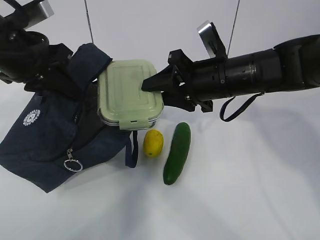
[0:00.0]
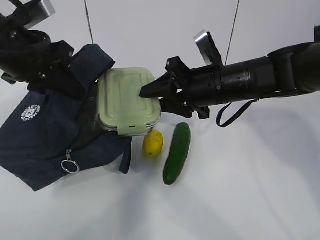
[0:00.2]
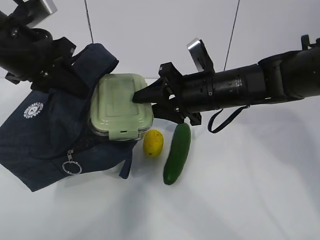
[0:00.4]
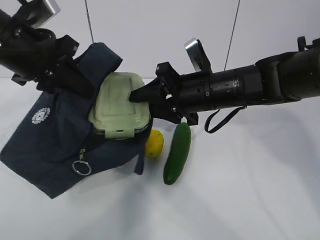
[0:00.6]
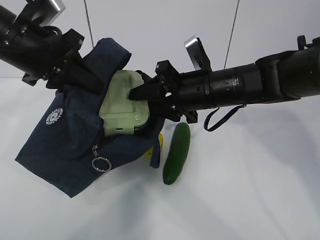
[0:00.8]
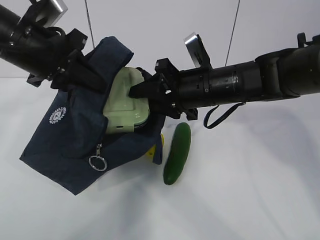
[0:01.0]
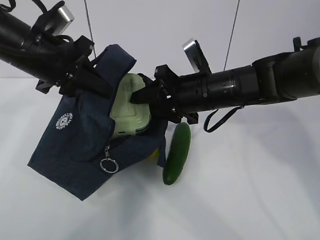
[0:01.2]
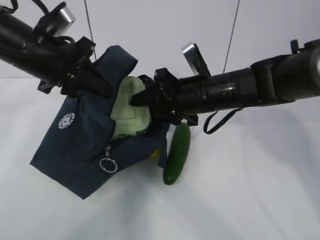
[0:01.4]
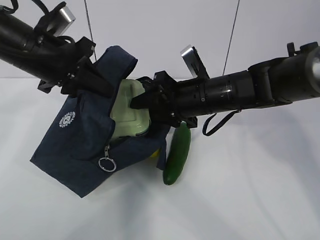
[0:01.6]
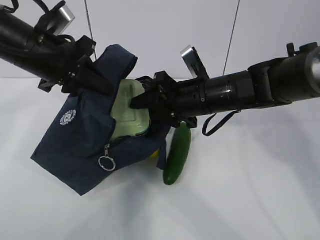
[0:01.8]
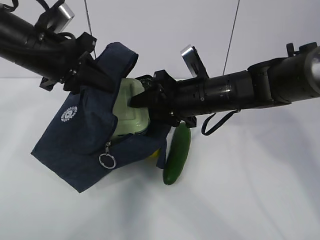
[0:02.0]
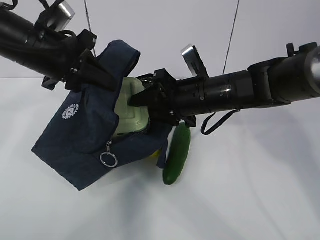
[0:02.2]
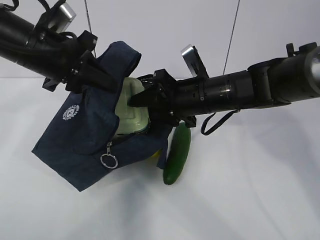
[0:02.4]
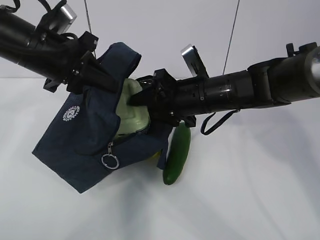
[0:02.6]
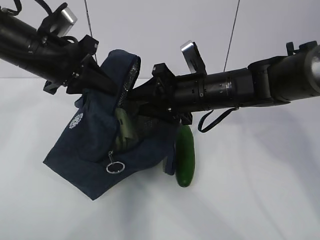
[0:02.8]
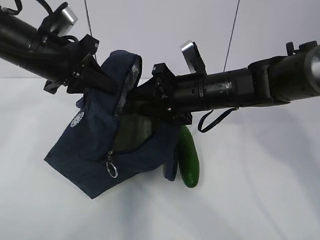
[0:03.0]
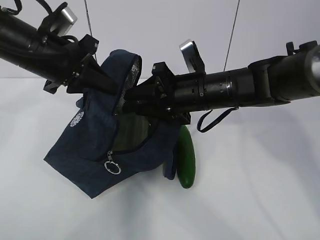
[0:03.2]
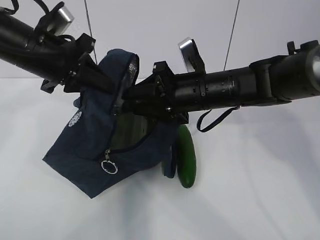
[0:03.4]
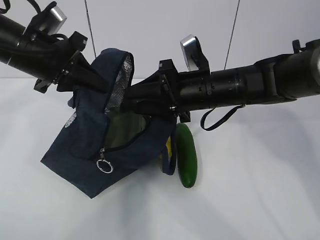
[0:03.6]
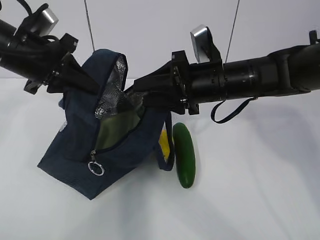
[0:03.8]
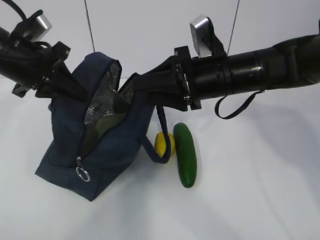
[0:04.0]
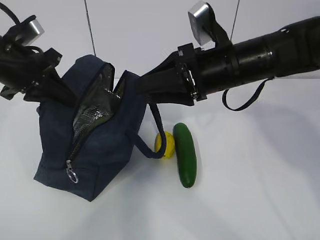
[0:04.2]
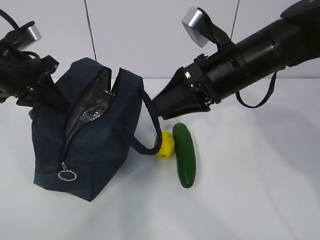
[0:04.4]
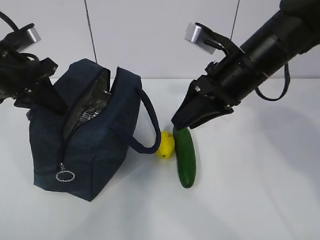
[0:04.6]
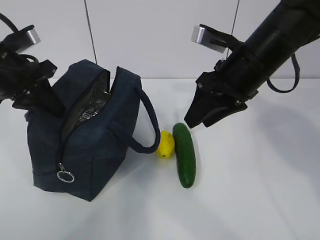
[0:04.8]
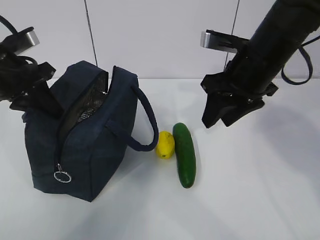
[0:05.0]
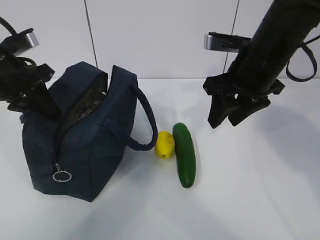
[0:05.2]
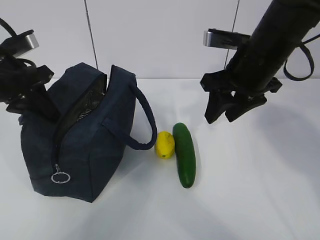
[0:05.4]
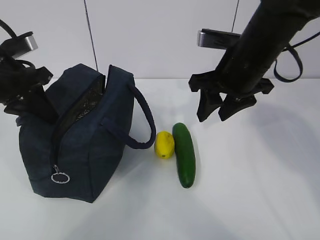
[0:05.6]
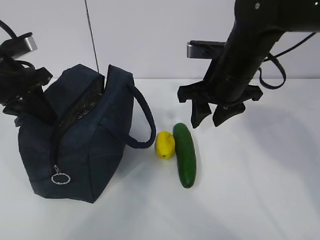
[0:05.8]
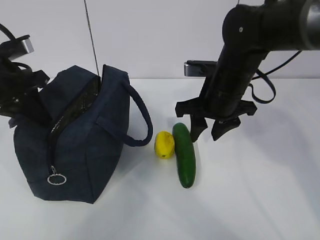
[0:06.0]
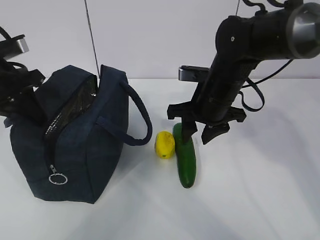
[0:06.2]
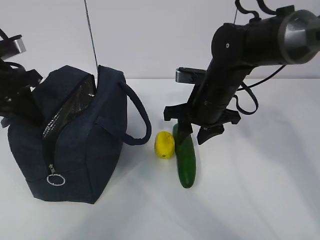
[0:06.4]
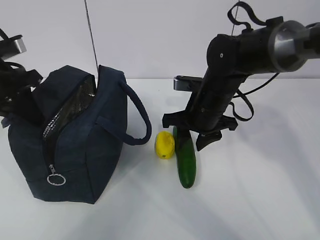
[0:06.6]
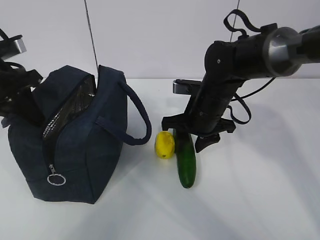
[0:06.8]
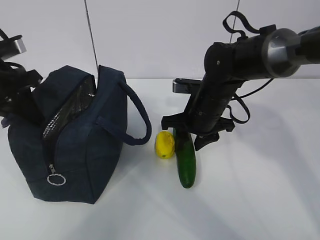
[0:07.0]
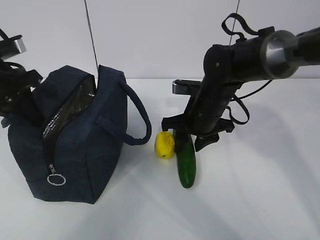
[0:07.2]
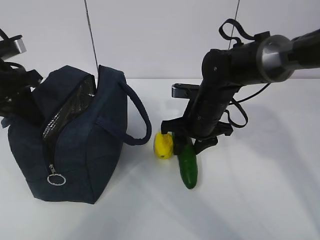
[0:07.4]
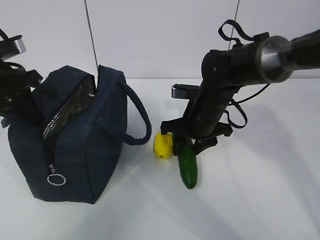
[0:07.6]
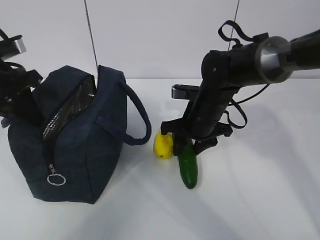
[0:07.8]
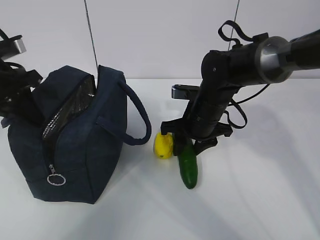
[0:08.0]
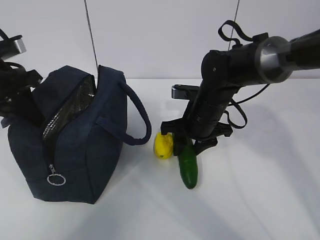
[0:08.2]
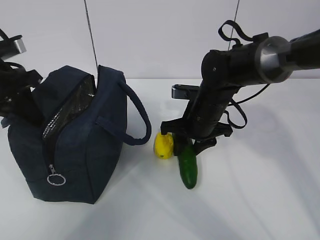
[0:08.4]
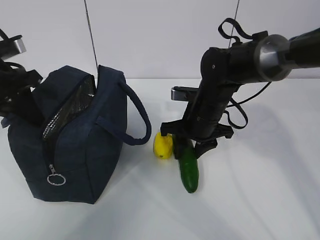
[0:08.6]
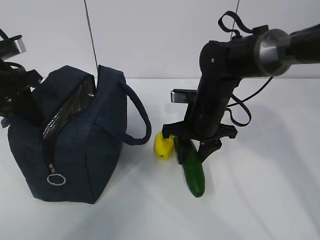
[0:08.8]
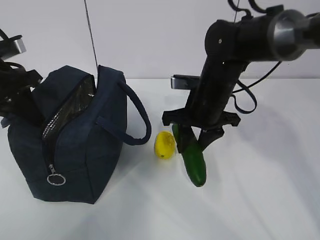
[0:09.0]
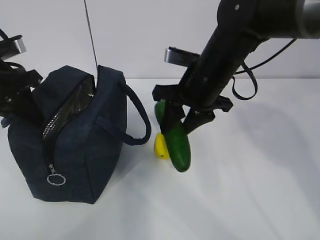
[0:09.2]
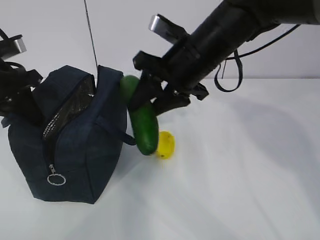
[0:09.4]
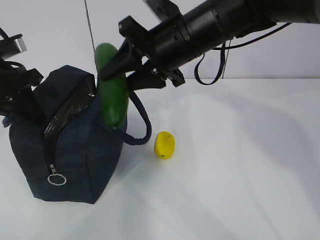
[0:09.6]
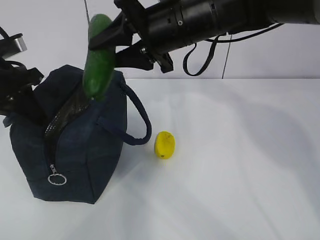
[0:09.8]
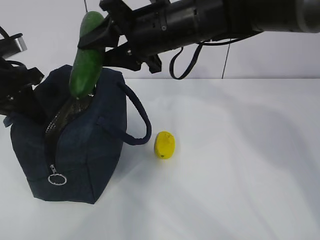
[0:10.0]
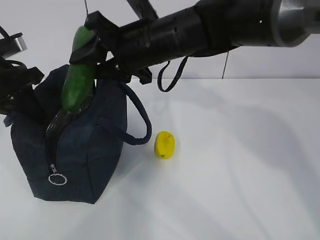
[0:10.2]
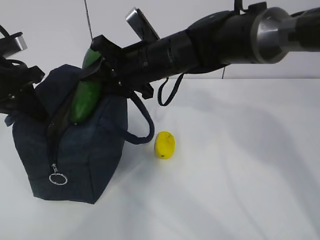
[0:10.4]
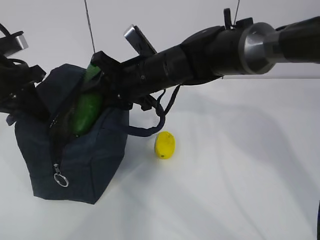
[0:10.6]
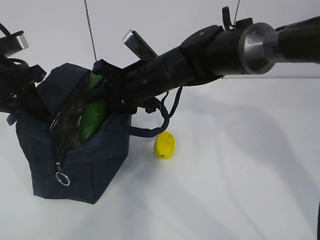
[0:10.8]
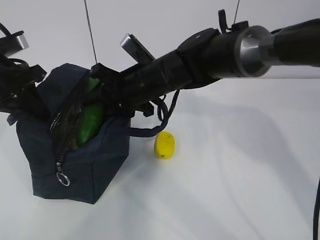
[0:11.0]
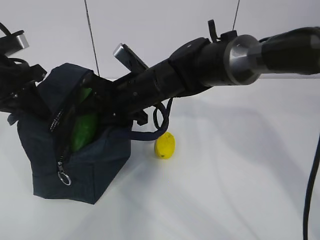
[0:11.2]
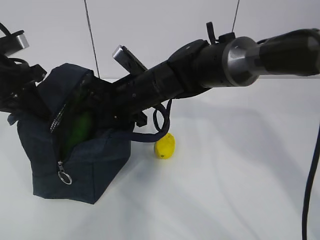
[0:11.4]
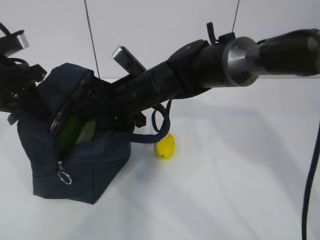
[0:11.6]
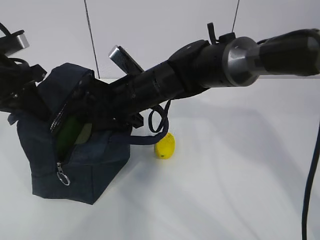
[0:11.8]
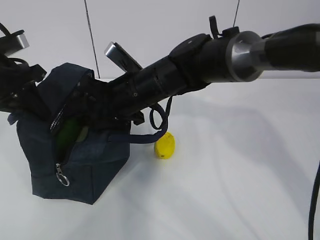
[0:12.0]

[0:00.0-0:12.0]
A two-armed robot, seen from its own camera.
Step, 0:00.0 to 0:02.6: Grab the cucumber with your right hand.
Step, 0:03.0 to 0:05.6: Place it into the bag with your right hand.
Step, 0:05.8 to 0:09.6: Grab the lemon with your right hand.
0:01.6 to 0:03.0: Both grippers stay about where they are.
0:03.0 to 0:04.4: The right gripper travels upward by roughly 5 cm. The left gripper moves to the left, about 5 cm.
0:04.4 to 0:06.0: The right gripper heads downward, covering some 5 cm.
0:06.0 to 0:07.6: The right gripper heads downward, covering about 5 cm.
0:07.6 to 0:09.0: The grippers move only a little.
0:09.0 to 0:10.4: The right gripper moves to the left and upward, roughly 10 cm.
0:10.4 to 0:12.0: The right gripper changes place by roughly 5 cm.

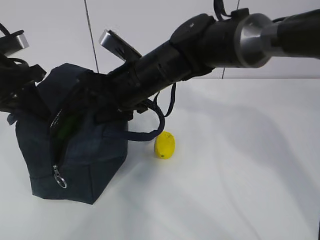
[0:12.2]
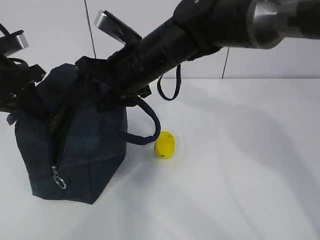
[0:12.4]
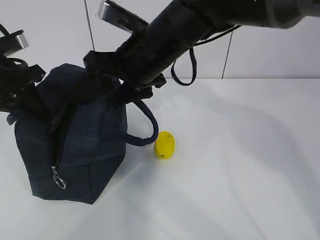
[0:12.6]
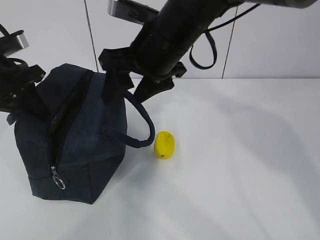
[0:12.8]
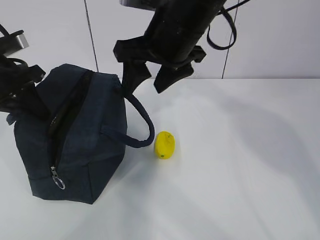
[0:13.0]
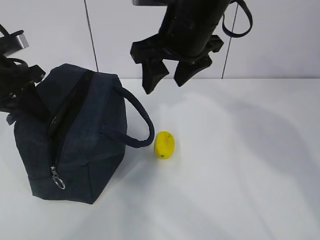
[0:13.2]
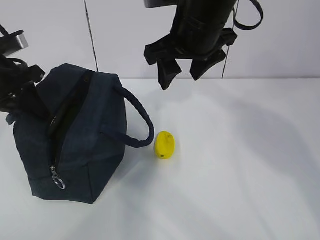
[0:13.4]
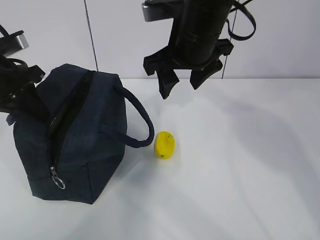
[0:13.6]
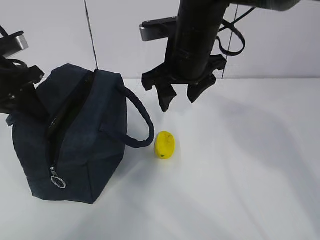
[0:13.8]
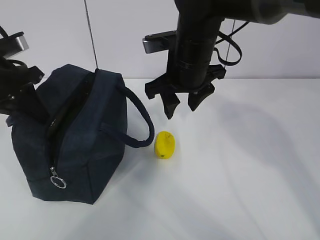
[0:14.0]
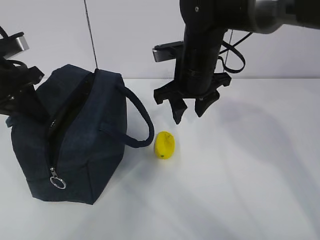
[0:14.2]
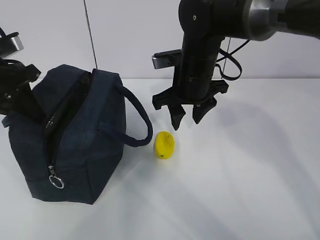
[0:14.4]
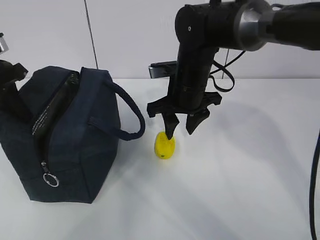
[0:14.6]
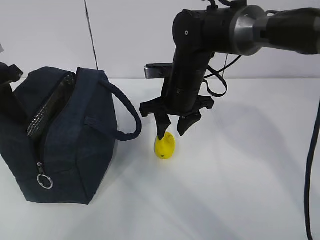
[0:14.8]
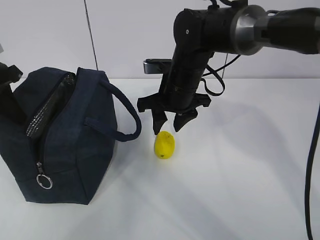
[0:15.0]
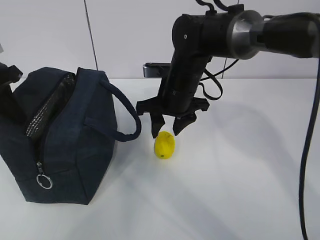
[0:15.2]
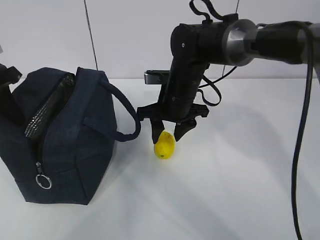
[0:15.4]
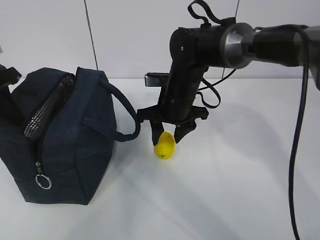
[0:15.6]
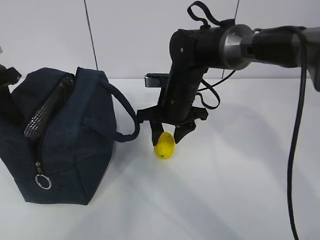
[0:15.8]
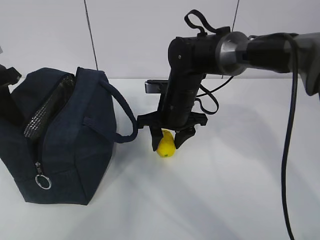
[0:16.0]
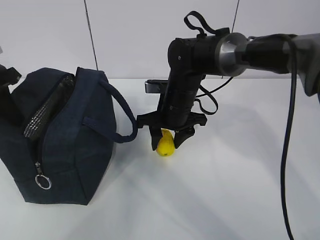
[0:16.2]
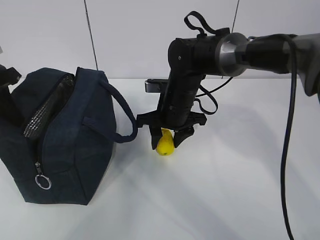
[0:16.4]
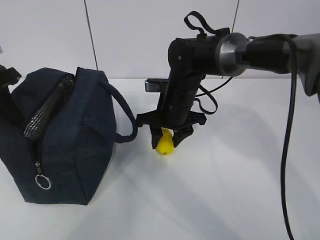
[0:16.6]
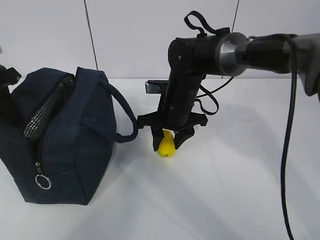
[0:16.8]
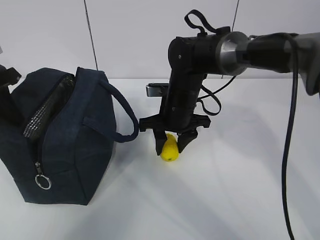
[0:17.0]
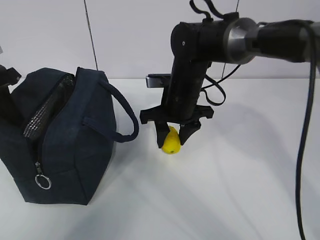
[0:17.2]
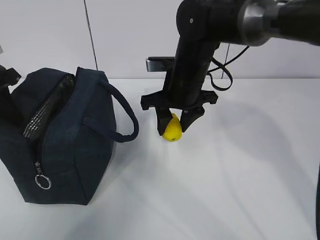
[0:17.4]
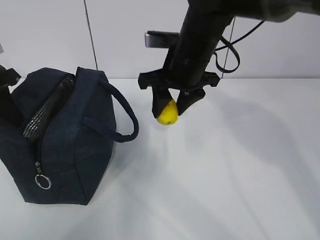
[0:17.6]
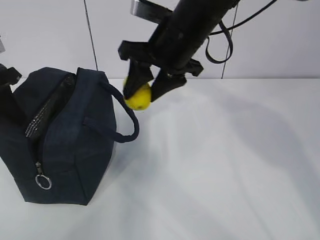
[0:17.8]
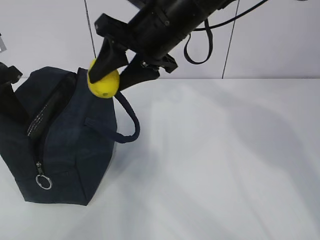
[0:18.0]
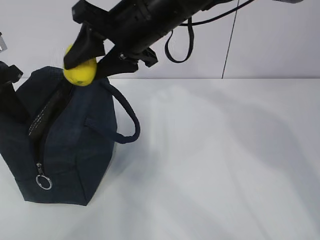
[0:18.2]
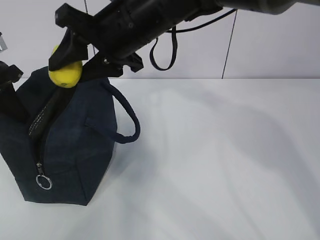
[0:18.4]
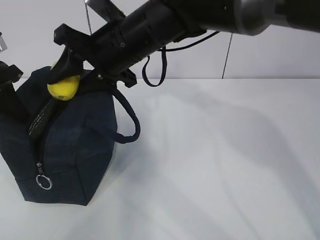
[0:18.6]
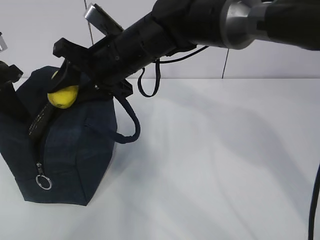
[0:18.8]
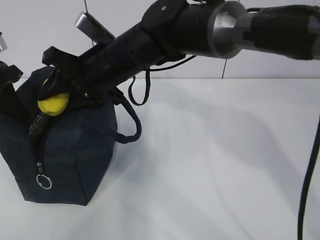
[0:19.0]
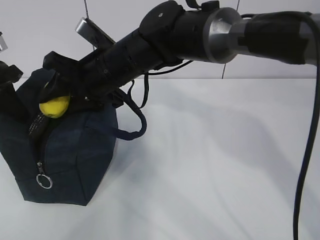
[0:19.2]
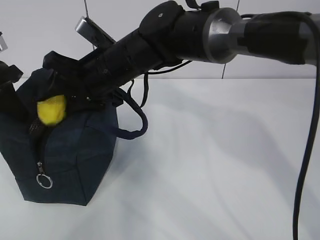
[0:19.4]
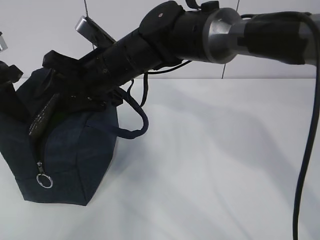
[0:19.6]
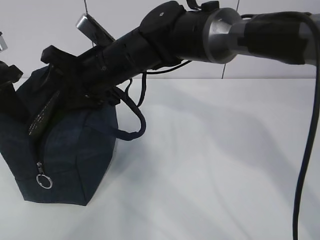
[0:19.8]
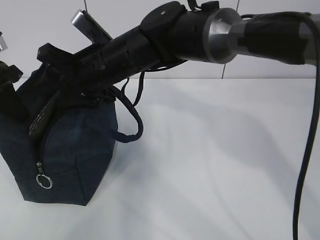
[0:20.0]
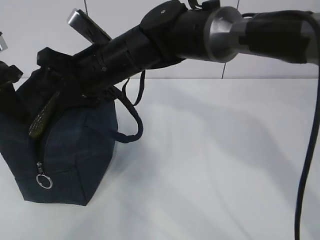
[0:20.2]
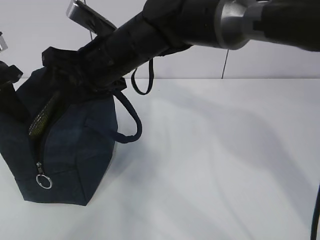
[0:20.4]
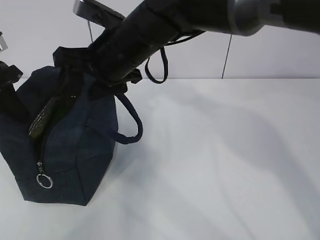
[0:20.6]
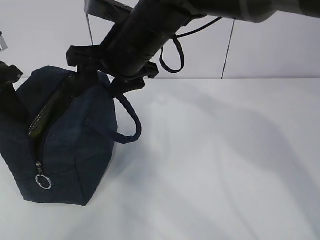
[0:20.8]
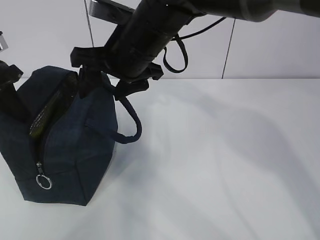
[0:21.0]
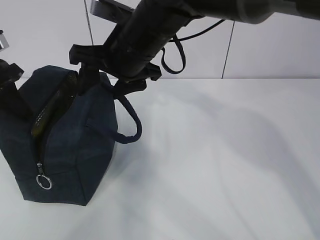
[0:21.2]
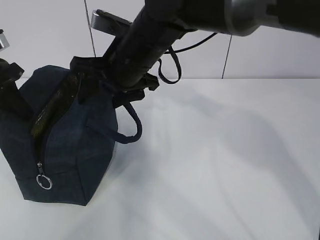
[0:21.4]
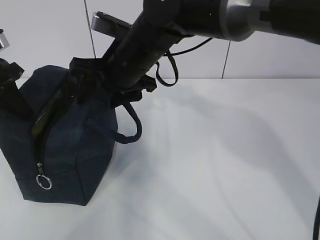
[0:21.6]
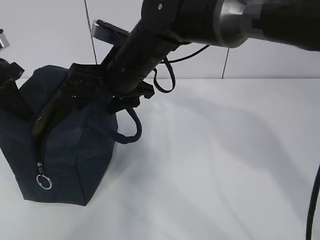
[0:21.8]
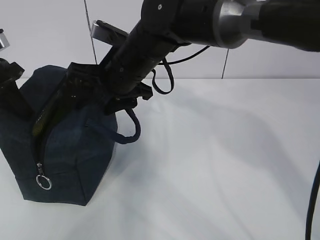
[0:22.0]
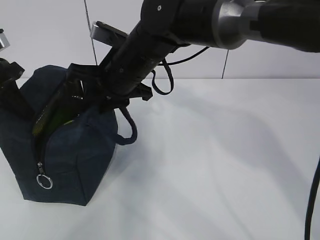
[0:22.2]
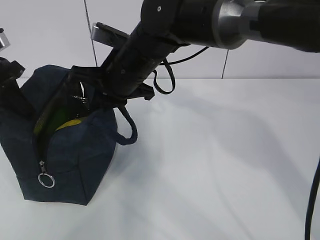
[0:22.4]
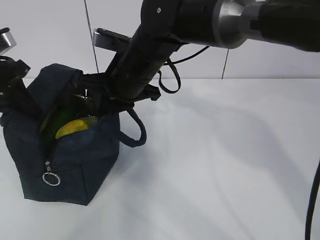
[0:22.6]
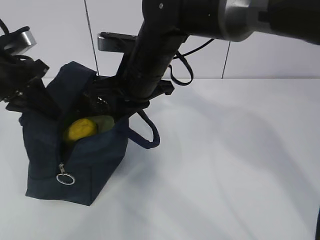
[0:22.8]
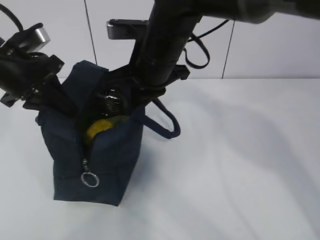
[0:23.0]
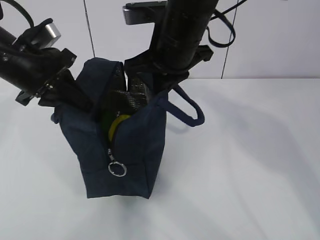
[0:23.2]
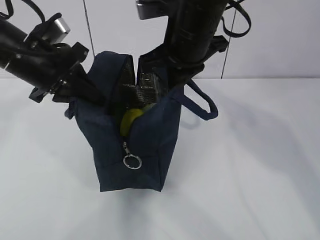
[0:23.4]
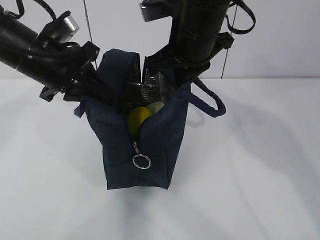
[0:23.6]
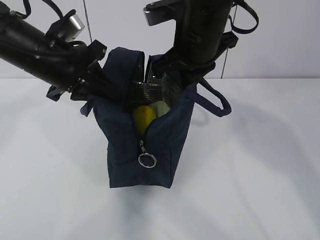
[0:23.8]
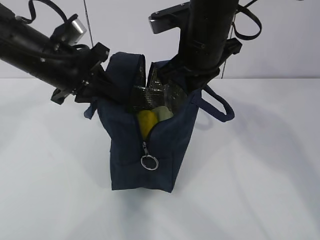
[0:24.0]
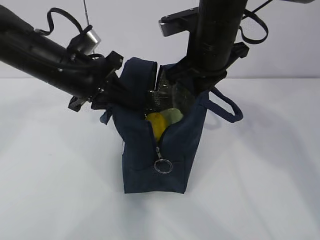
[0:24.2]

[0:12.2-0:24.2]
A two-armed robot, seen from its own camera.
Step, 0:12.4 to 0:14.6: Grab the lunch bag with your right hand.
Step, 0:14.8 to 0:17.4: Move the lunch bag to the right.
0:12.2 to 0:13.8: The right gripper shifts some 10 cm to the right and upward.
0:13.8 to 0:15.2: The right gripper heads downward, covering about 10 cm.
0:15.2 to 0:16.6: The grippers make only small movements.
0:16.6 to 0:18.2: The right gripper shifts approximately 20 cm upward.
0:18.2 to 0:19.8: The right gripper moves downward and to the left, roughly 10 cm.
0:19.8 to 0:21.2: The right gripper moves approximately 5 cm.
0:21.2 to 0:22.6: The right gripper closes.
0:22.6 to 0:24.2: Both grippers move to the right, about 15 cm.
